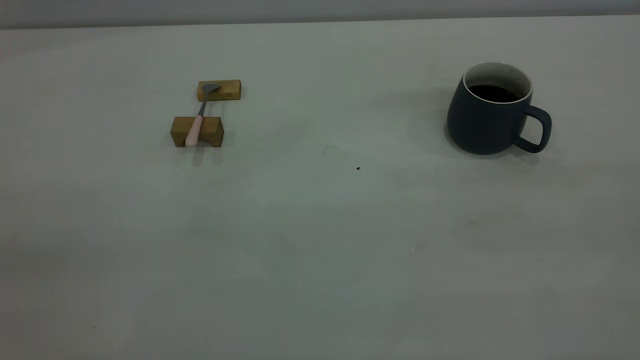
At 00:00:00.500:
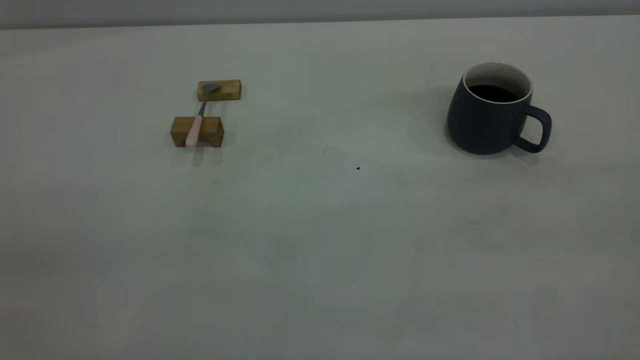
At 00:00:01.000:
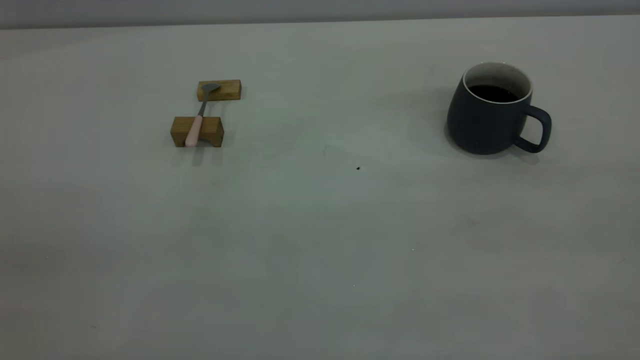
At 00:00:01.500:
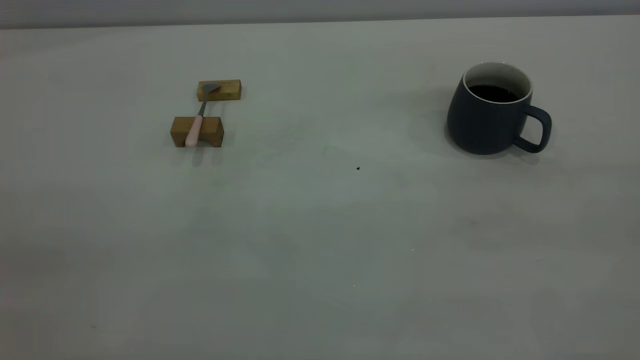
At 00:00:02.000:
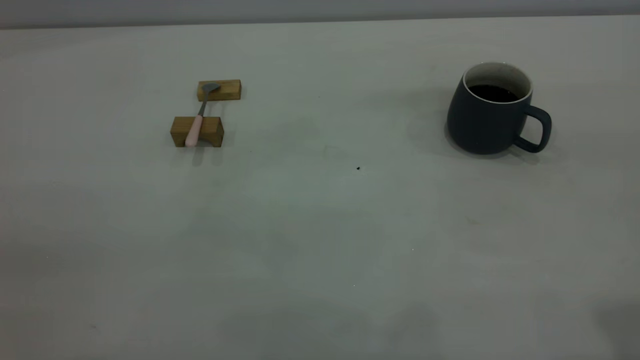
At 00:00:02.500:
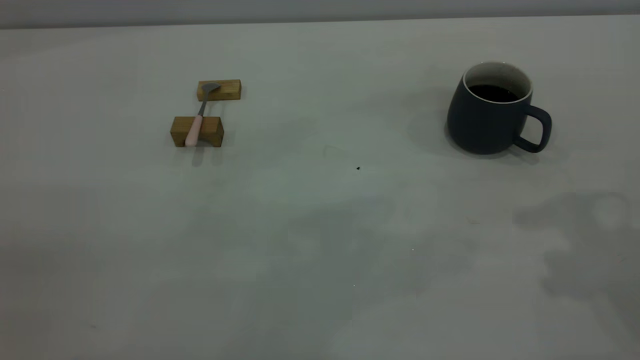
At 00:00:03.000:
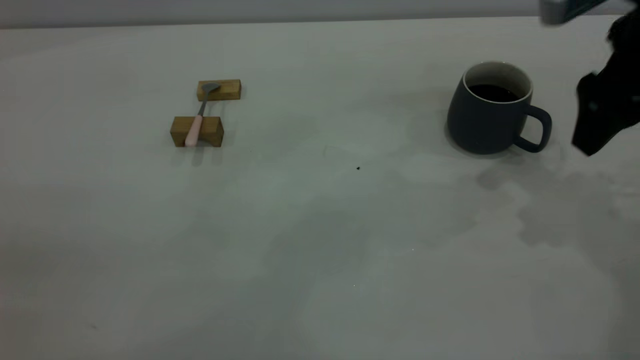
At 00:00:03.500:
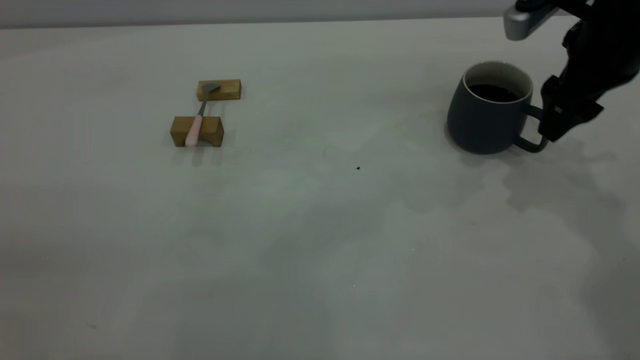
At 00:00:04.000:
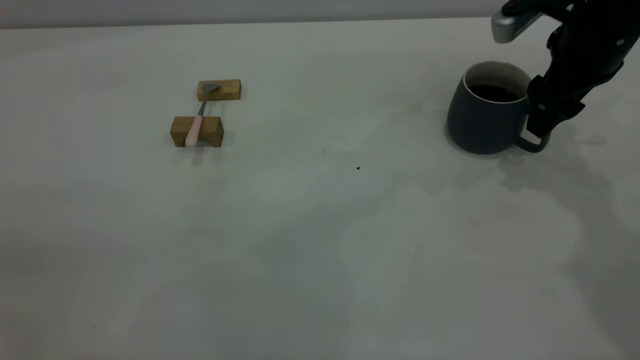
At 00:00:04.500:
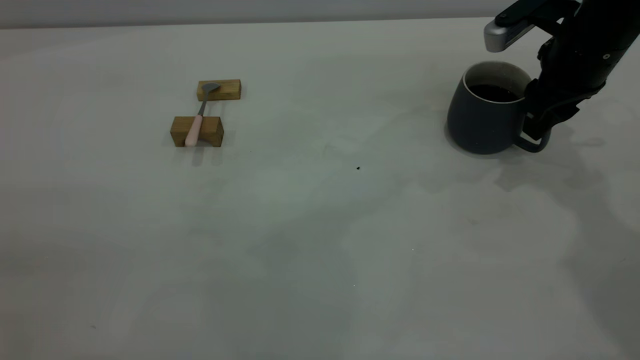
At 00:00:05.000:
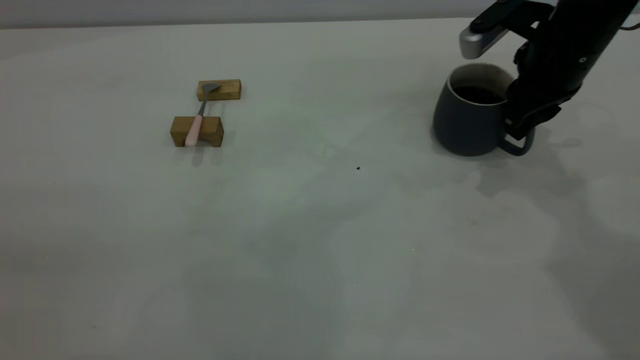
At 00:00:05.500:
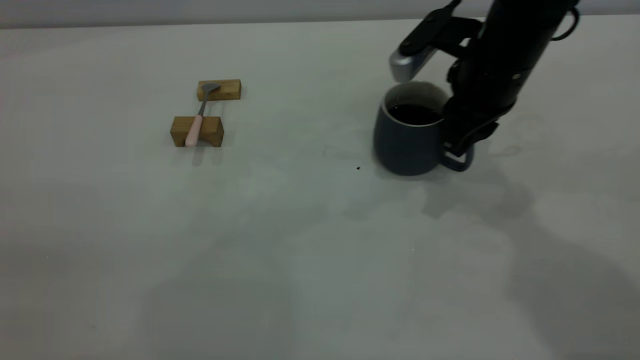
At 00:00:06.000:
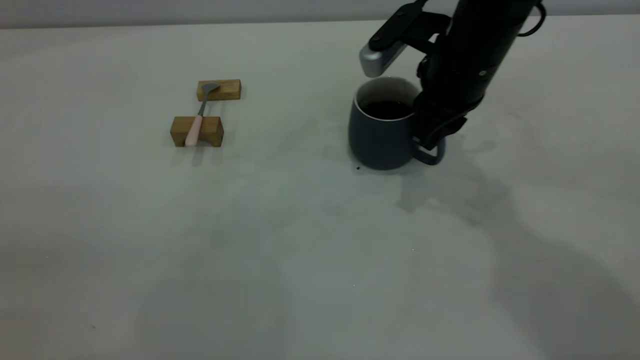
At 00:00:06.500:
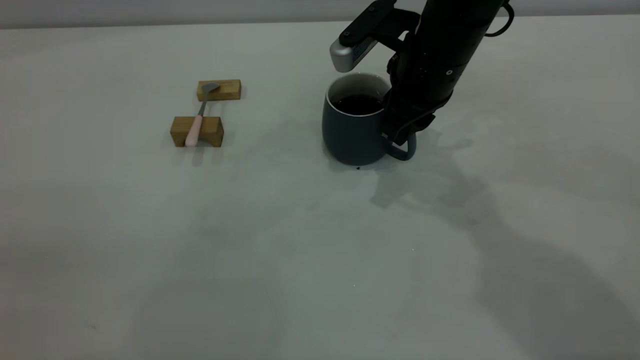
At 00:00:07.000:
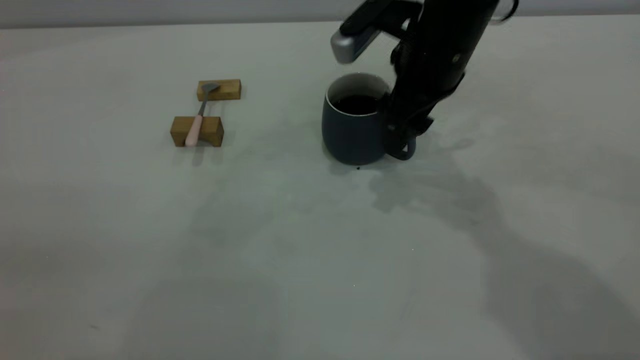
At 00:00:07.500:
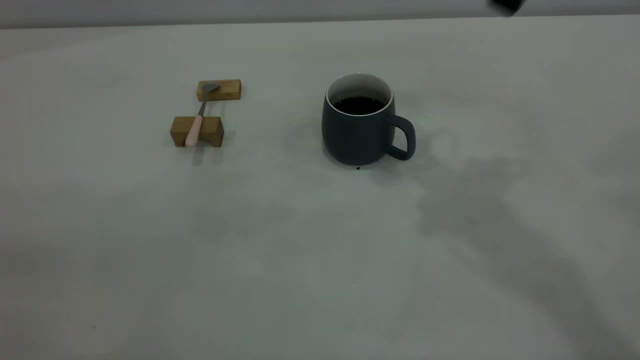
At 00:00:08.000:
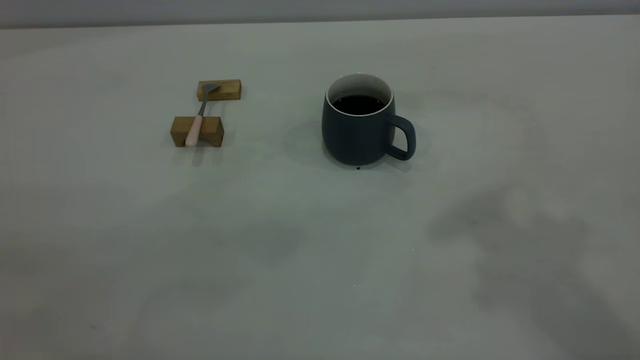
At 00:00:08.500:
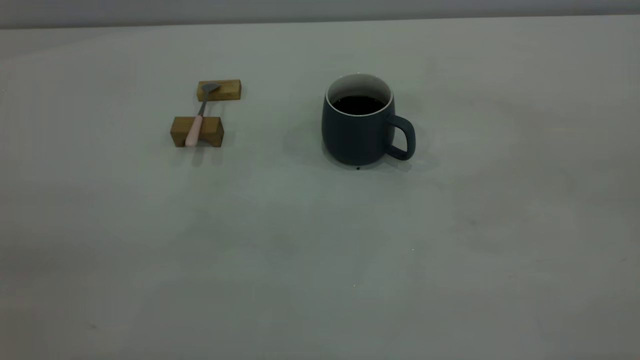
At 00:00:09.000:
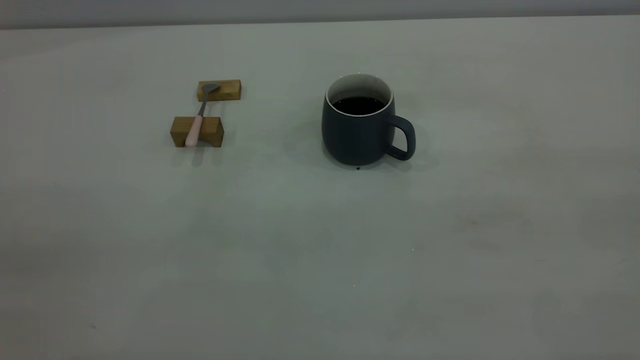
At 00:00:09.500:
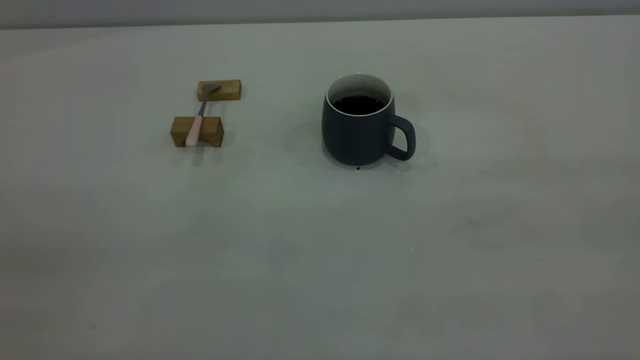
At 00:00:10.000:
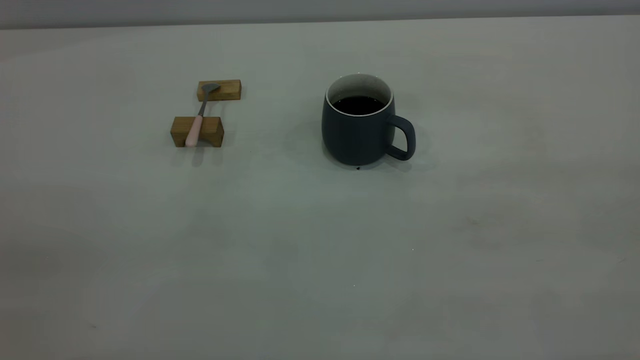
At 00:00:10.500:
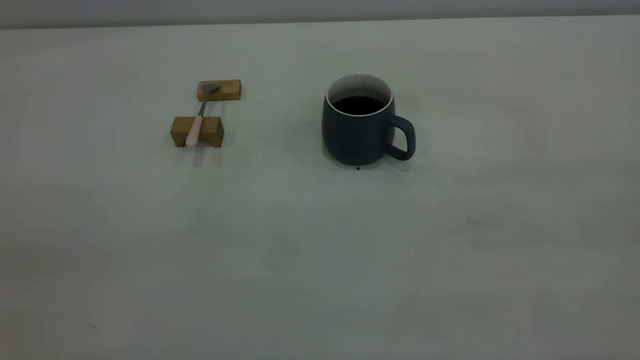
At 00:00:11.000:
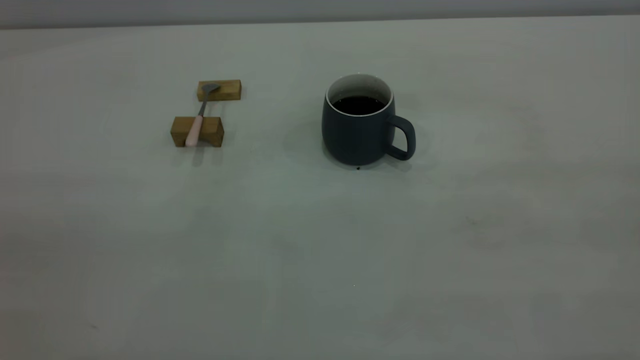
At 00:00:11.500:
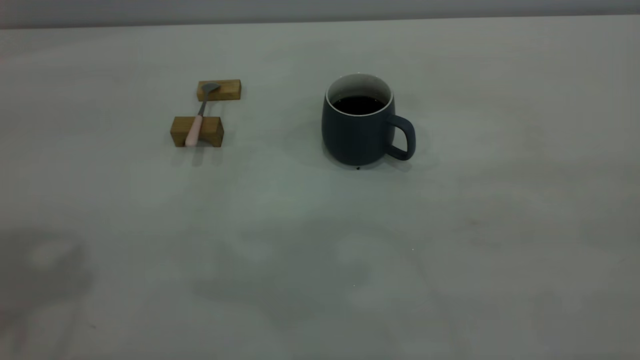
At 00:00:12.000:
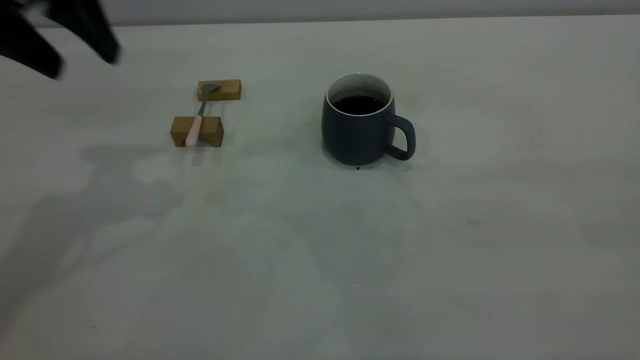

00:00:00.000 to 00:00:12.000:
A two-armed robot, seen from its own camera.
Step, 00:00:00.000 to 00:00:07.000: Move the cup with coffee to the center of view.
00:00:02.000 to 00:00:04.000: The right gripper shifts some 35 cm forward and downward.
00:00:04.000 to 00:00:06.000: The right gripper is displaced to the left by approximately 15 cm, and closes its fingers.
00:00:06.000 to 00:00:08.000: The right gripper travels upward and backward by roughly 35 cm, and opens.
00:00:10.000 to 00:00:12.000: The left gripper is displaced forward by approximately 35 cm, and opens.

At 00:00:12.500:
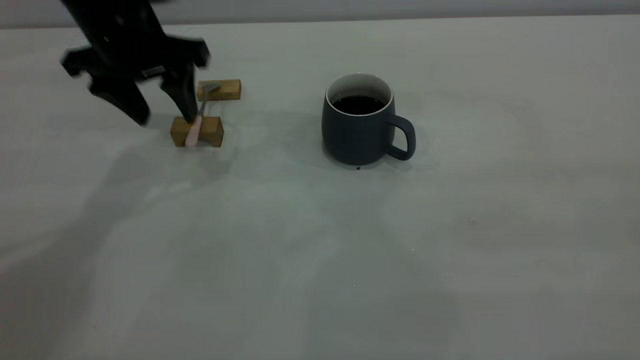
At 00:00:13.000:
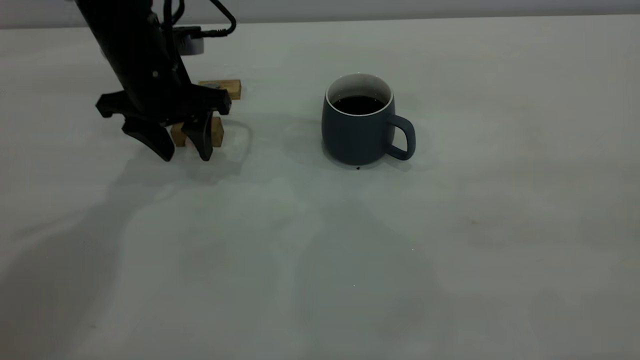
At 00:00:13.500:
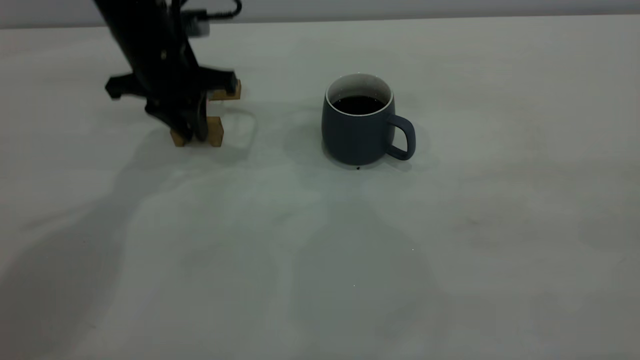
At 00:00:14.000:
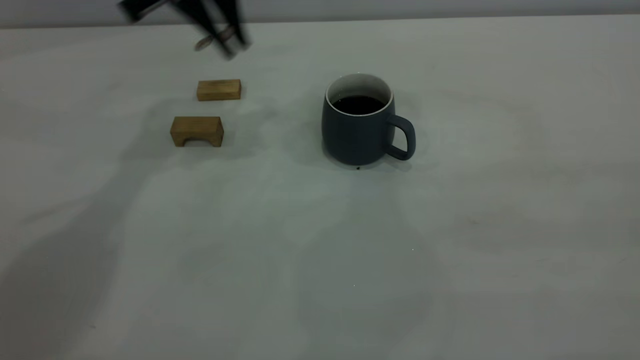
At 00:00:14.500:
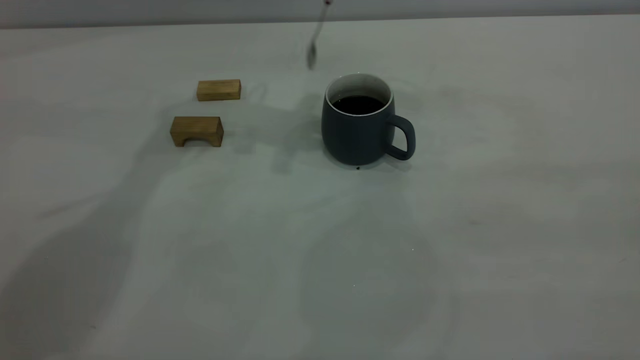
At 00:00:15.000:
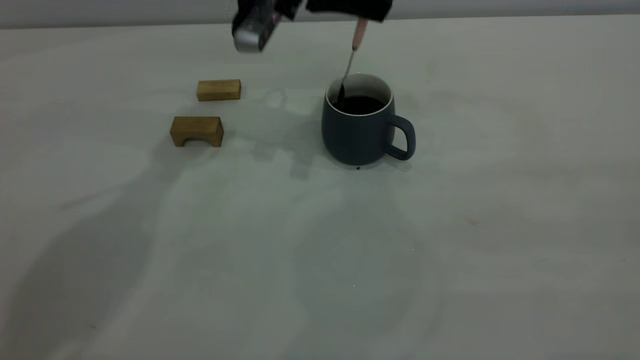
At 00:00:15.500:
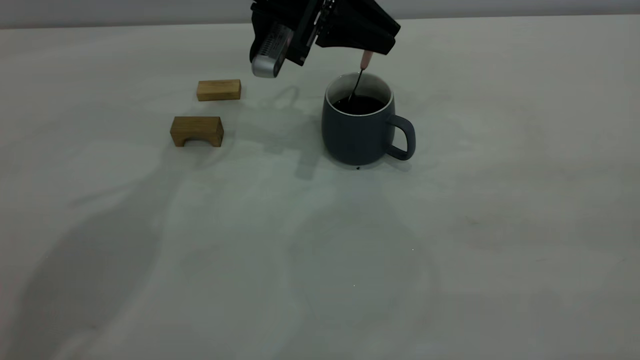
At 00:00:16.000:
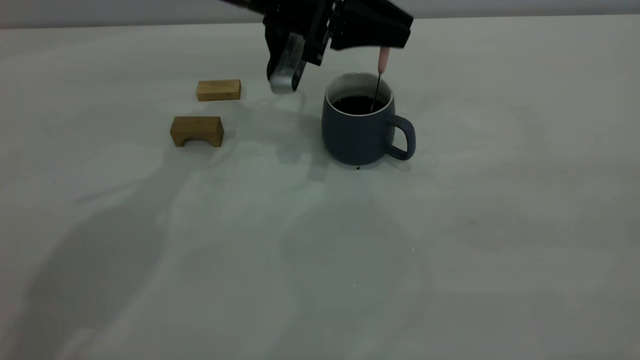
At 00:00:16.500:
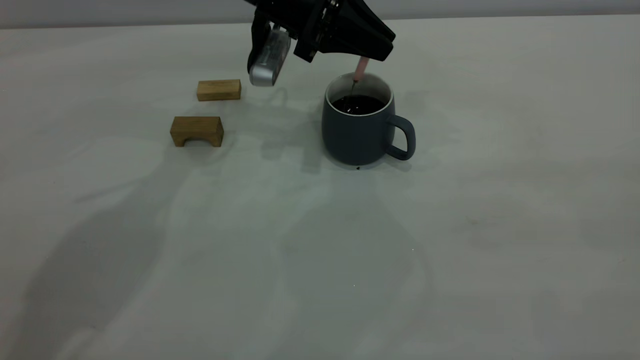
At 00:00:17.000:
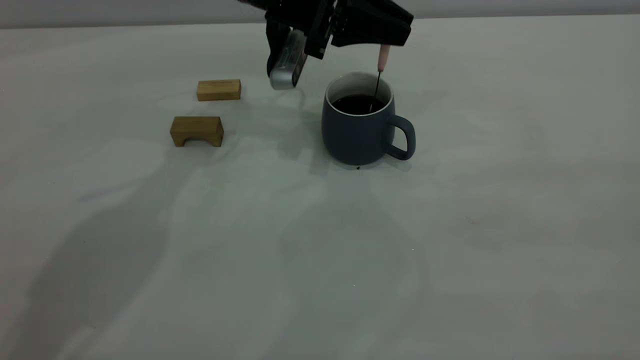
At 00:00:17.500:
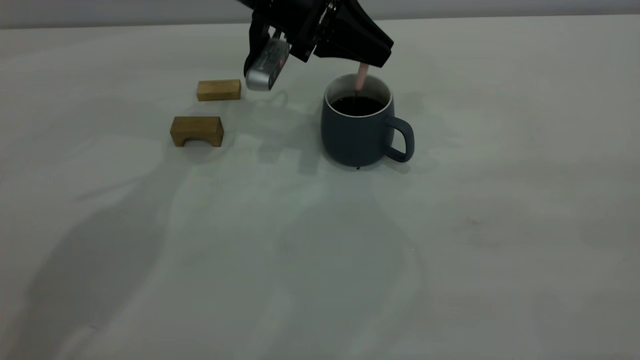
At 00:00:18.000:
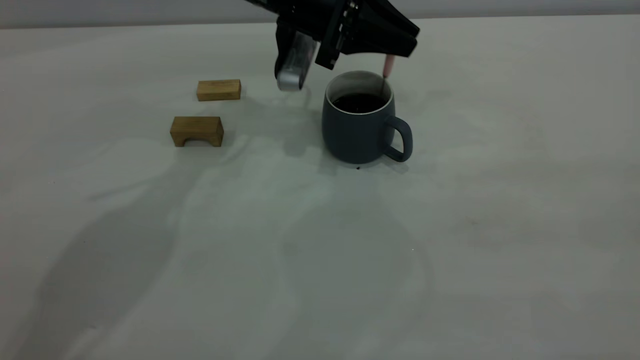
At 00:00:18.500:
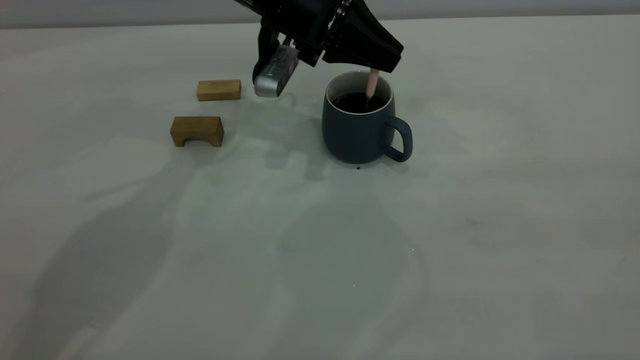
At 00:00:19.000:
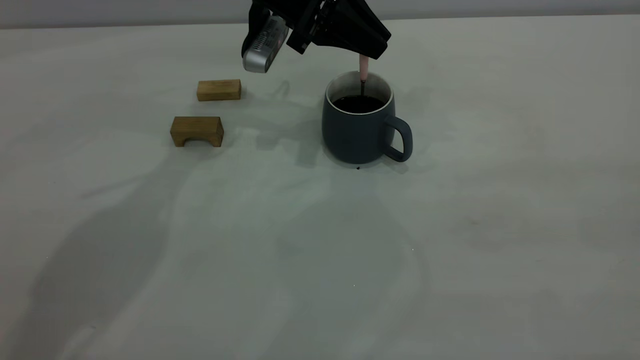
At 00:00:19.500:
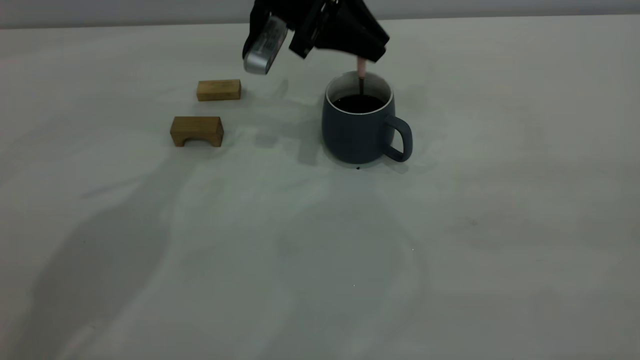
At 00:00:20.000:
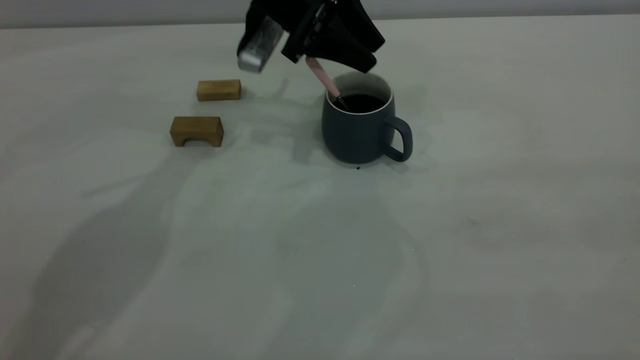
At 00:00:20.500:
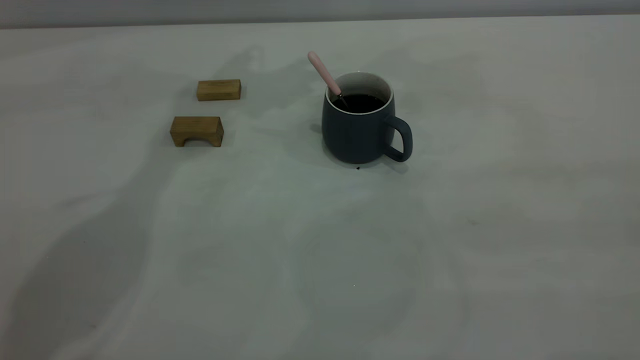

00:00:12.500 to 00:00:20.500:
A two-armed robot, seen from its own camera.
Step, 00:00:14.000 to 00:00:20.000: Stir the coffee in the cup.
00:00:12.500 to 00:00:14.500: The left gripper moves to the right, upward and forward, some 15 cm, and closes up.
00:00:14.500 to 00:00:16.500: The left gripper goes about 10 cm downward.
00:00:16.500 to 00:00:18.500: The grippers stay close to where they were, moving slightly.
00:00:18.500 to 00:00:20.500: The left gripper is displaced upward by about 20 cm, and opens its fingers.
